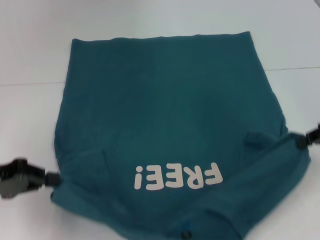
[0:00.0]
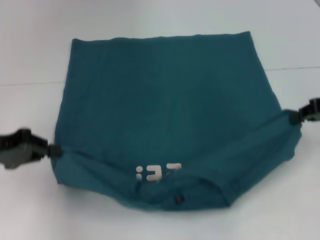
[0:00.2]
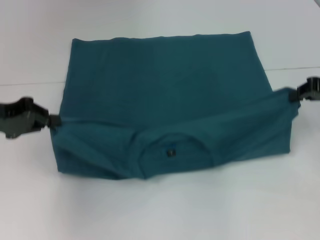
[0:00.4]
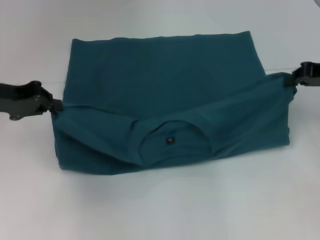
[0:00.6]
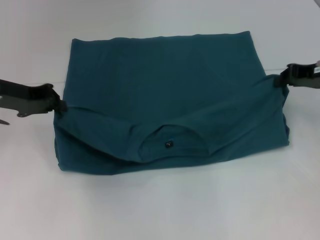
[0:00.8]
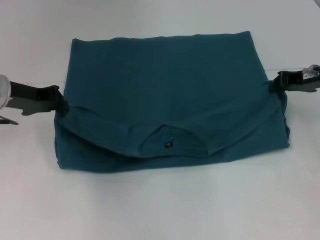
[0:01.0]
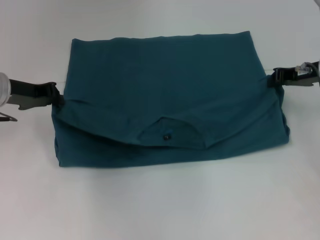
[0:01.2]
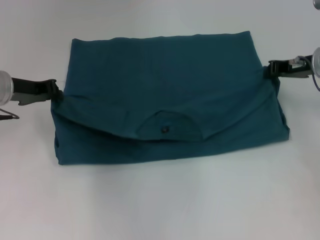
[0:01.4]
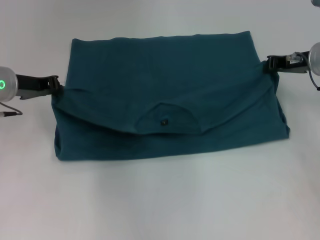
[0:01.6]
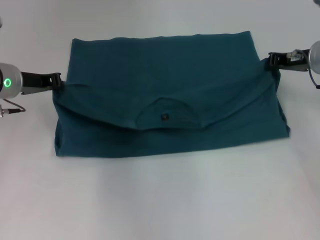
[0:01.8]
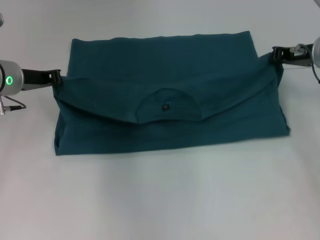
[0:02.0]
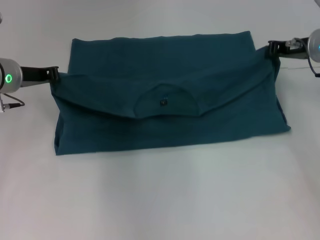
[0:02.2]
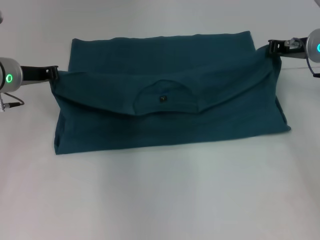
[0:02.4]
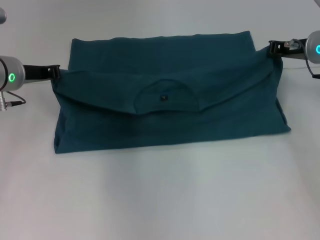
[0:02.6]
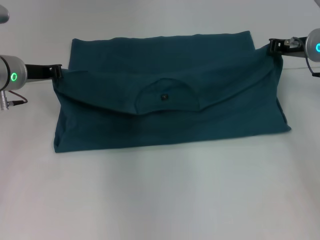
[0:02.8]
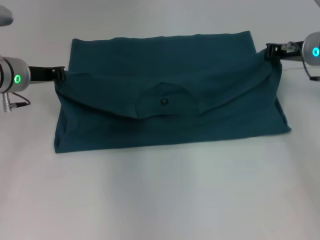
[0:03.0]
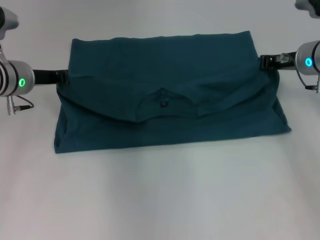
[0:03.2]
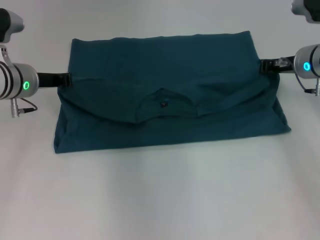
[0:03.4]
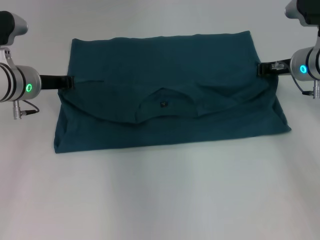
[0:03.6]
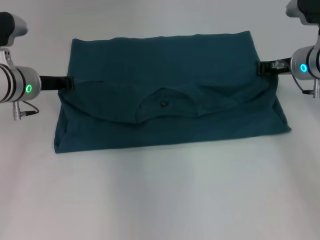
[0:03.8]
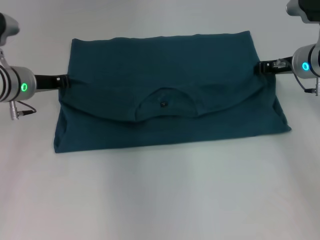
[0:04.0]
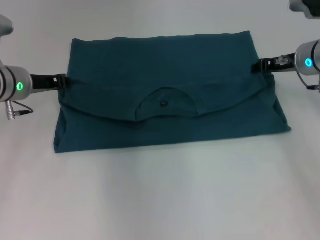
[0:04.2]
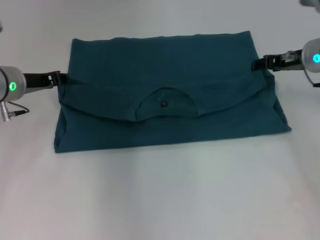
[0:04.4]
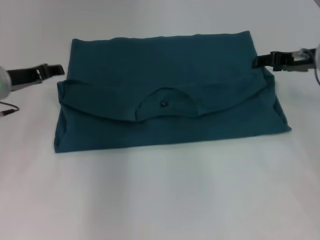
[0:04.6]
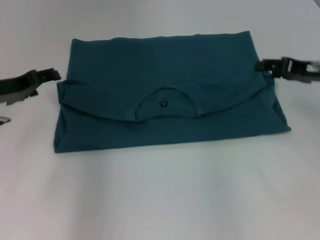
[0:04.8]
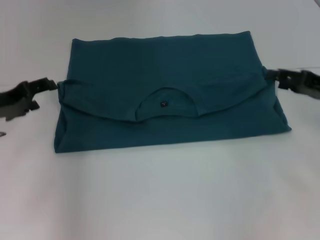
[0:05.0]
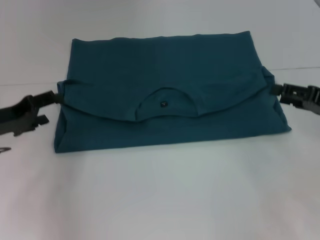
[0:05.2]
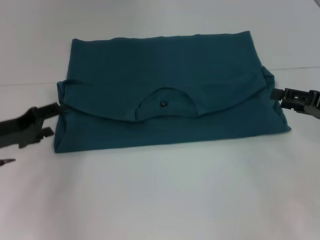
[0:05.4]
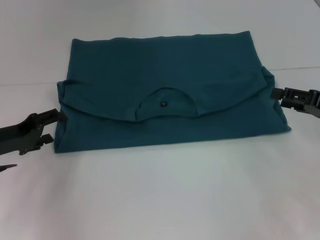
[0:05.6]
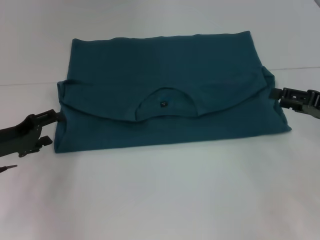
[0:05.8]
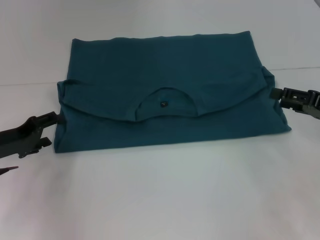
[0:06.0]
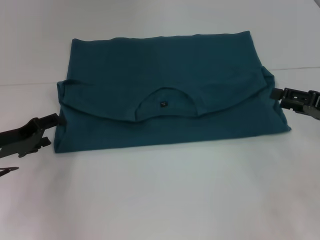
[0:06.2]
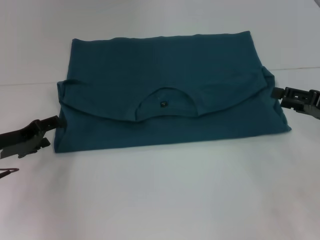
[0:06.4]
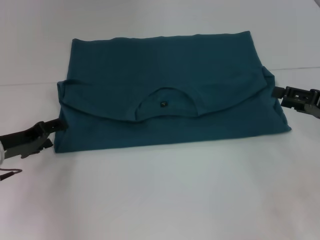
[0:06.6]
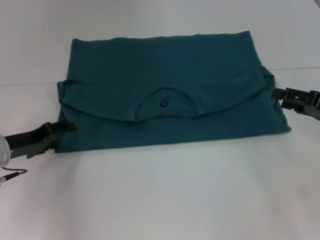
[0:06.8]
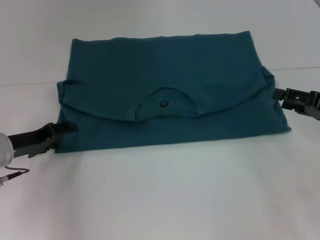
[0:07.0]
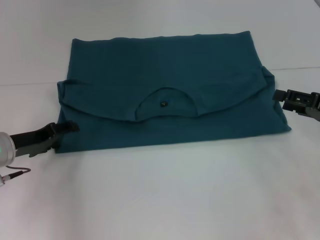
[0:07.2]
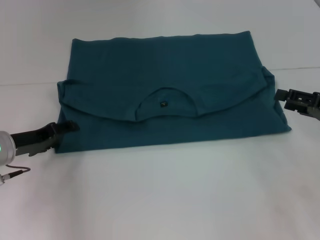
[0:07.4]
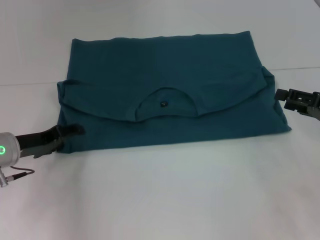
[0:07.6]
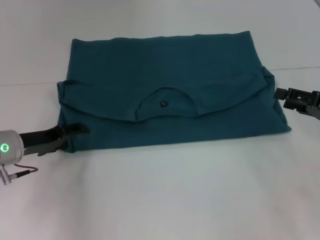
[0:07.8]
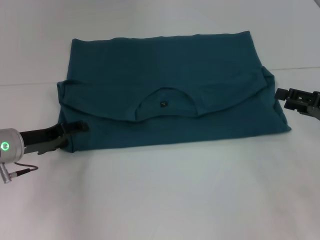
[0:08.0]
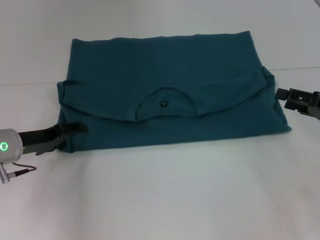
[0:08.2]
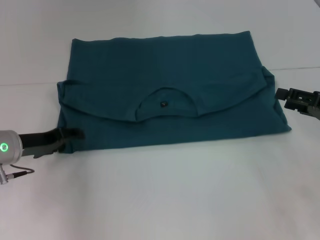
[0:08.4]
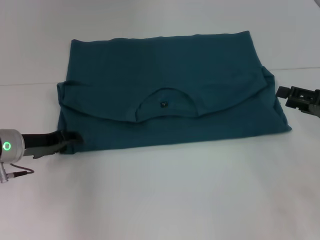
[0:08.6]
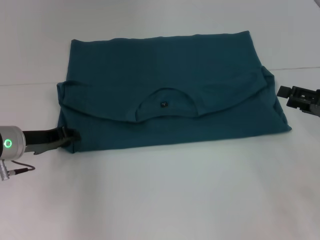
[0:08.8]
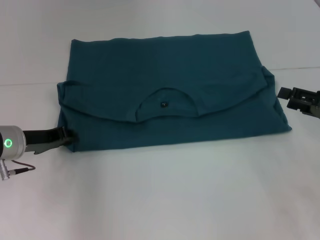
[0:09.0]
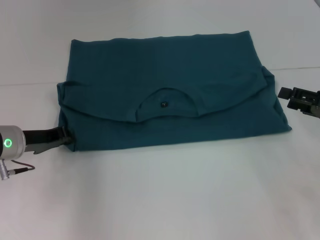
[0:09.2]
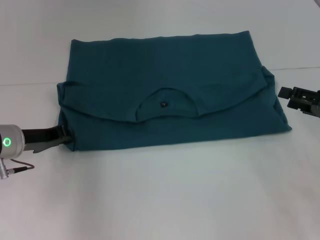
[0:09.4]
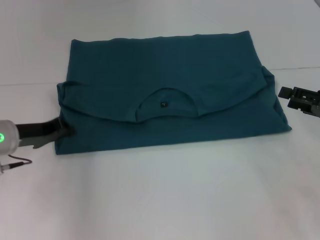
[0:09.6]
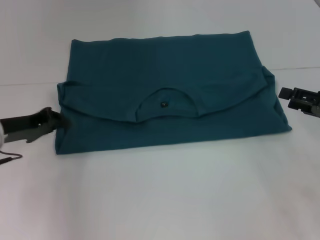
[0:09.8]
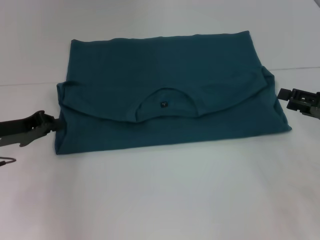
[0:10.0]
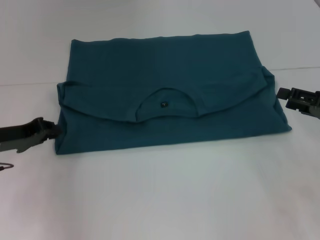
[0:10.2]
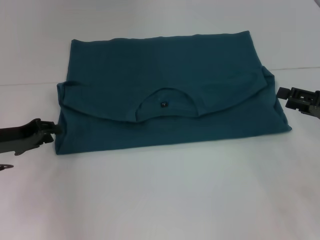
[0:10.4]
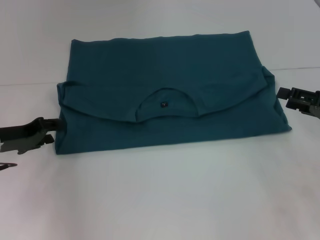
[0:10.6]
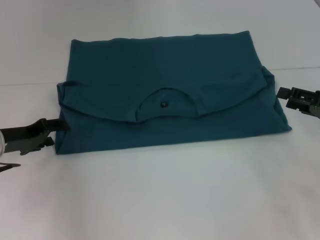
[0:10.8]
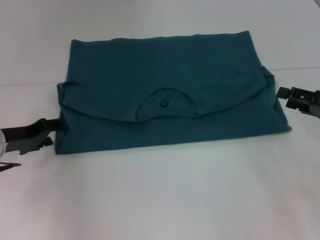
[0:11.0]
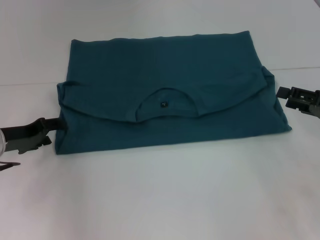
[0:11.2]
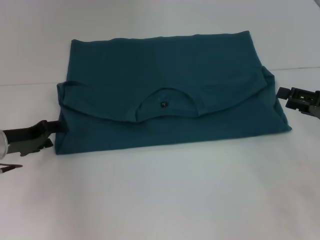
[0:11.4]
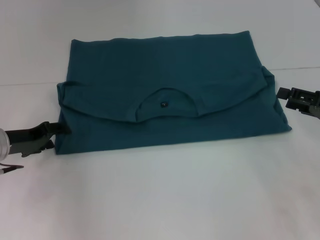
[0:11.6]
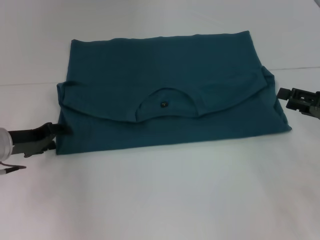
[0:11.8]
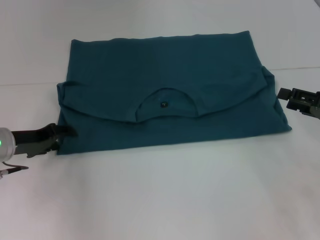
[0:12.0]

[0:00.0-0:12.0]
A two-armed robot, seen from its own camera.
Step, 0:00.0 to 0:04.2: Fold the clothes to the left.
Step, 0:00.0 to 0:04.2: Fold the clothes to the right.
0:00.0 to 0:01.6: The right gripper heads forward and to the left, covering roughly 15 cm. The left gripper moves forward and to the right, some 15 cm.
0:01.6 to 0:03.0: The grippers stay close to where they were, moving slightly.
0:03.0 to 0:04.4: The right gripper opens its fingers.
0:04.4 to 0:06.0: The left gripper shifts approximately 10 cm backward, downward and to the left, and opens up; the right gripper is displaced backward and to the right by about 15 cm.
0:06.0 to 0:07.6: The grippers move only a little.
0:07.6 to 0:09.0: The left gripper closes its fingers.
0:09.0 to 0:10.4: The grippers move only a little.
0:10.4 to 0:12.0: The left gripper opens its fingers.

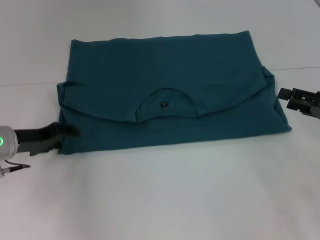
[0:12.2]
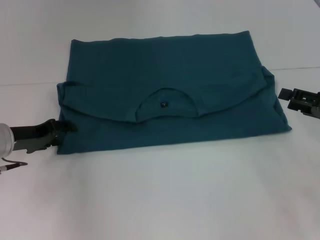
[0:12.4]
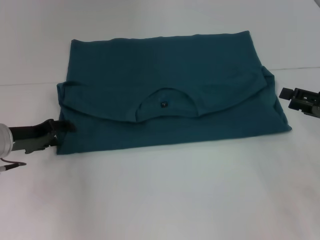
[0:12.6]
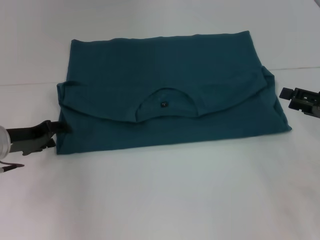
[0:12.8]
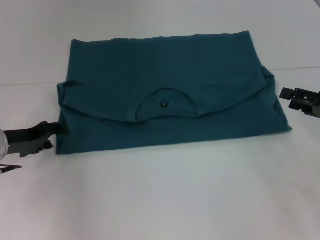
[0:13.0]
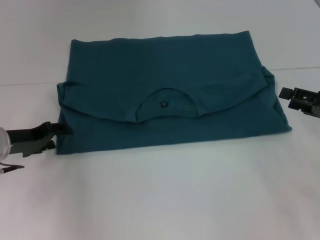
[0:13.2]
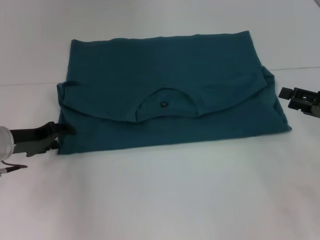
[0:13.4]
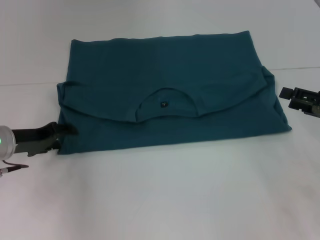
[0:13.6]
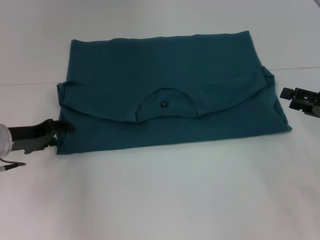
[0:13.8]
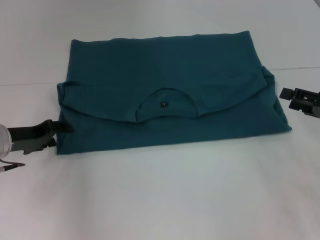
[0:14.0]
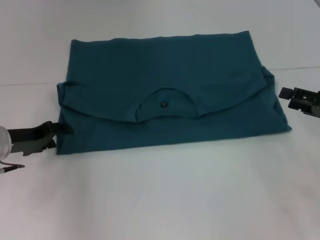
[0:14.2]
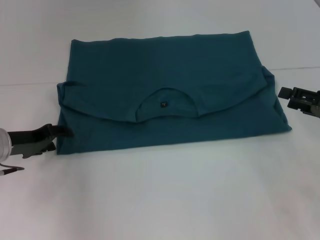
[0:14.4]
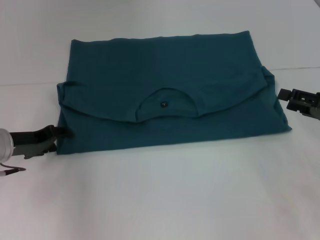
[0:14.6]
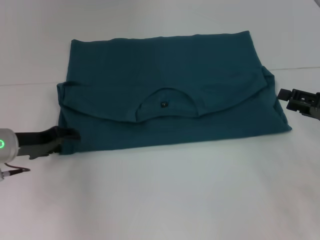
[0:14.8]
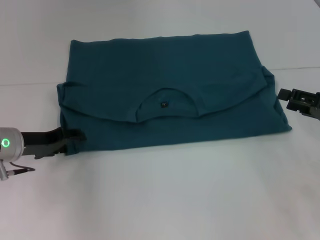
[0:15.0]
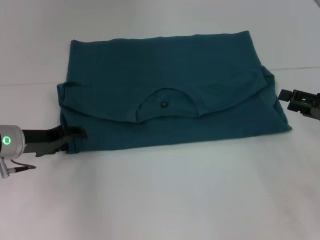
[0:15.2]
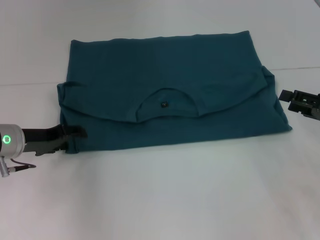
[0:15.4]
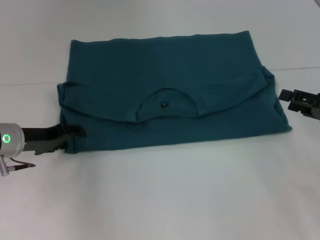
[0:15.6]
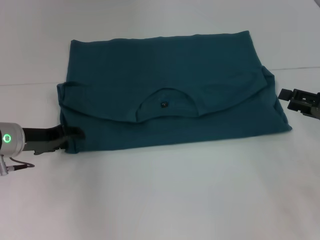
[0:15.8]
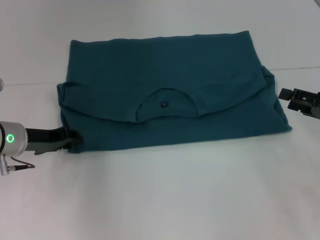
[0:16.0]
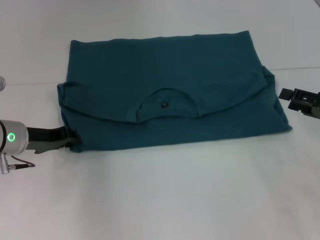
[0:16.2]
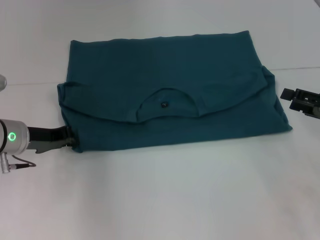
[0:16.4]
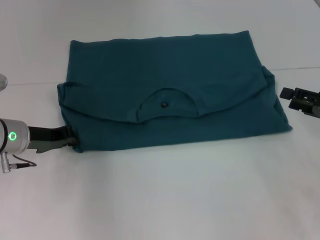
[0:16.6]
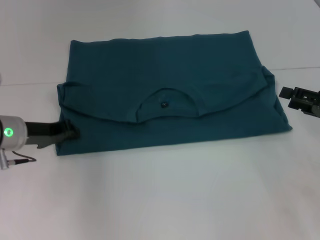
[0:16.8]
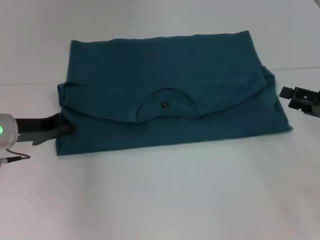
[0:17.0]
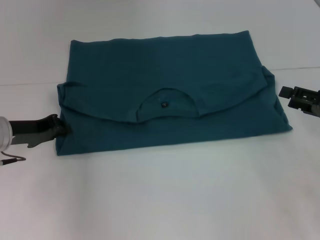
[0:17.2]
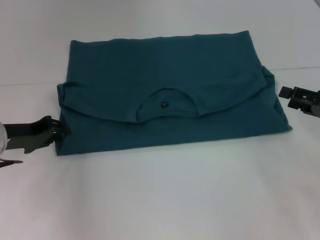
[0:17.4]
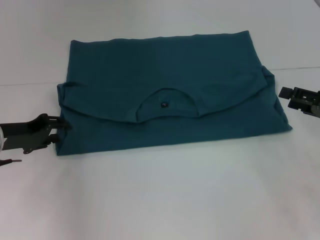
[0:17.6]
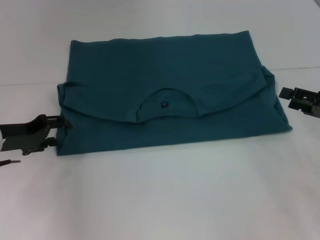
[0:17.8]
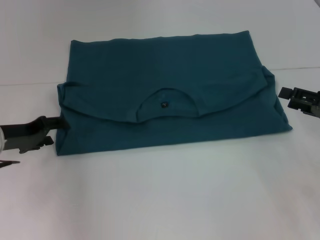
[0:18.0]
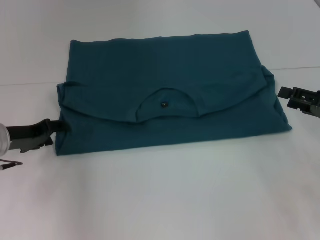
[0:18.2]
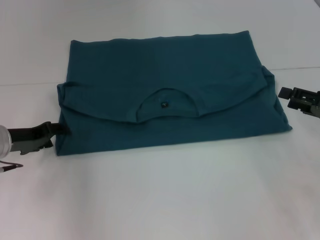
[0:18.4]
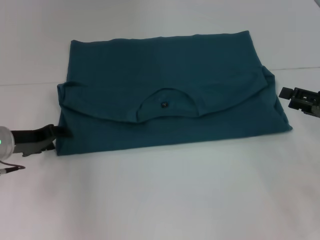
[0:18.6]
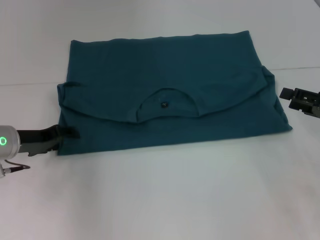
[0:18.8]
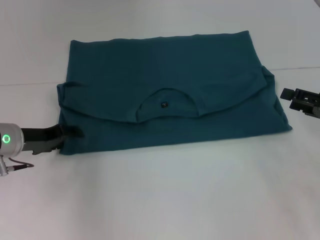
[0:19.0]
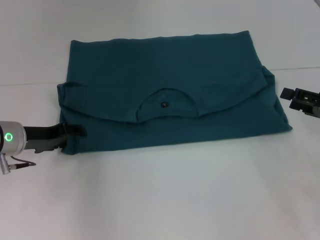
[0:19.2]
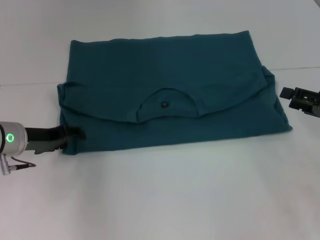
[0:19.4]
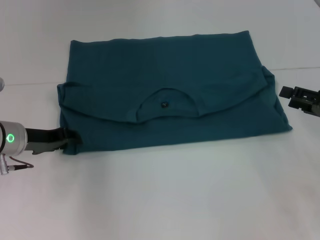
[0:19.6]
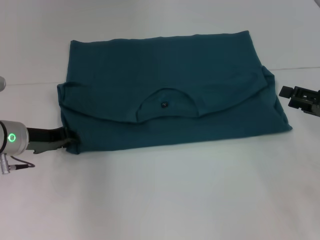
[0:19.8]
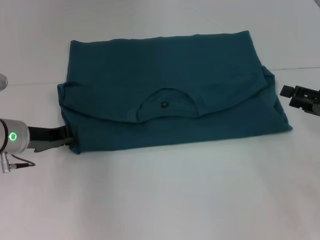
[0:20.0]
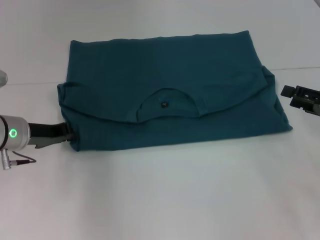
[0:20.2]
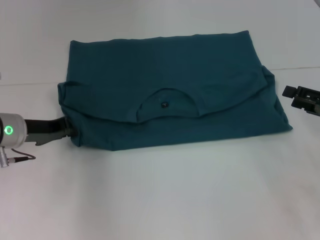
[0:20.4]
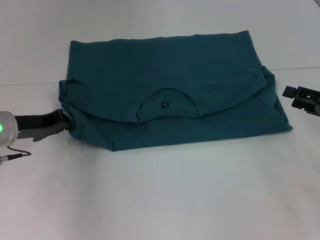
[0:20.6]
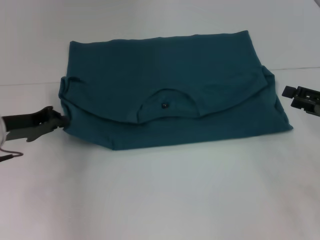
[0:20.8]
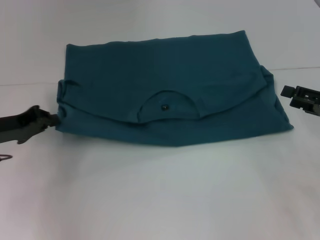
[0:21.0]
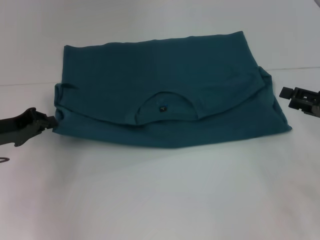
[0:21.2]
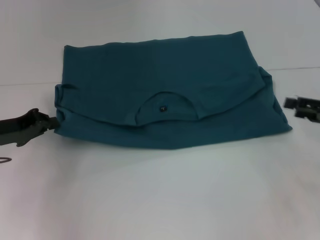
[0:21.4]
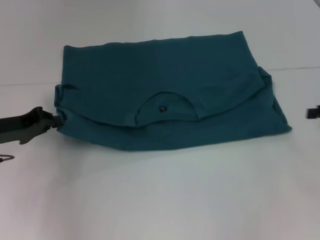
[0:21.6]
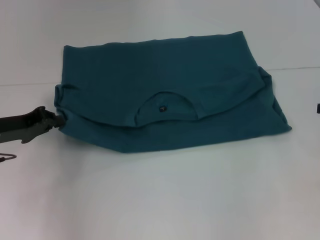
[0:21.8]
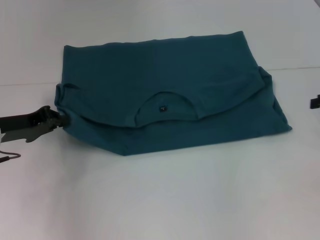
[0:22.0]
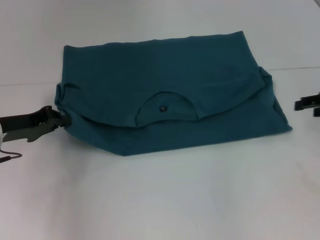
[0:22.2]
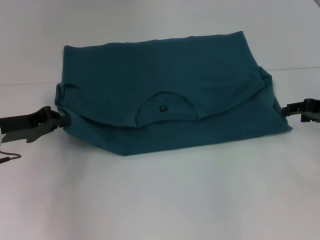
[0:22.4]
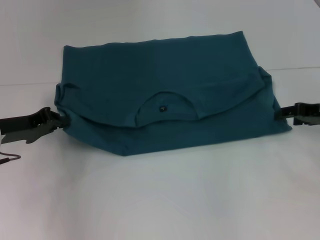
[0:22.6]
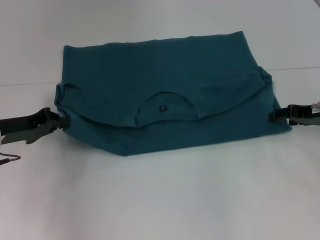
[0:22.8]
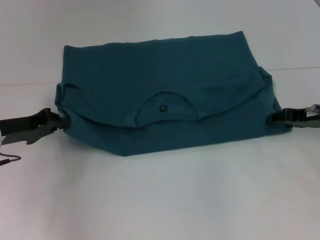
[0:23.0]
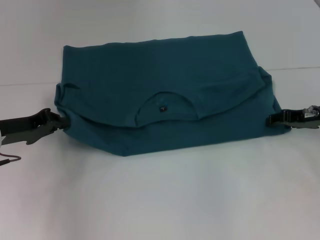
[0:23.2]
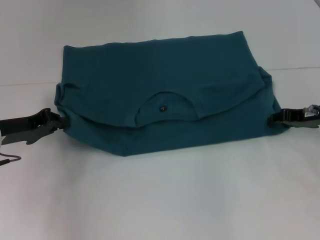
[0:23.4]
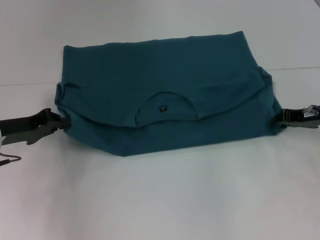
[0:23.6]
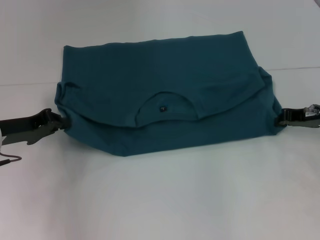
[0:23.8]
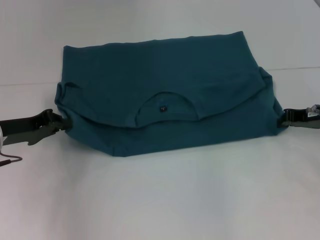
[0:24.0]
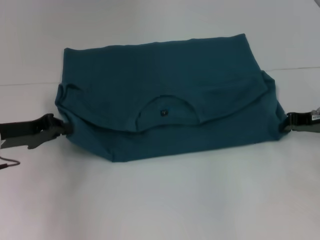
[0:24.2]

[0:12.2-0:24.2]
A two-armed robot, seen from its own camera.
0:12.2 to 0:13.8: Neither gripper changes place.
0:13.8 to 0:15.2: The grippers move only a little.
0:15.2 to 0:16.6: The left gripper closes up.
0:16.6 to 0:18.2: The left gripper opens.
0:18.2 to 0:19.8: The grippers move only a little.
0:19.8 to 0:21.2: The left gripper goes some 5 cm to the left, and closes its fingers.
0:21.2 to 0:22.6: The right gripper heads forward, covering roughly 5 cm.
0:22.6 to 0:24.2: The right gripper closes its fingers.
